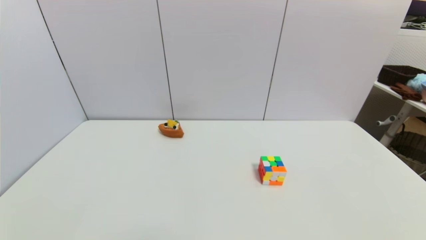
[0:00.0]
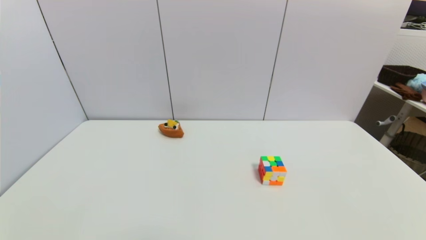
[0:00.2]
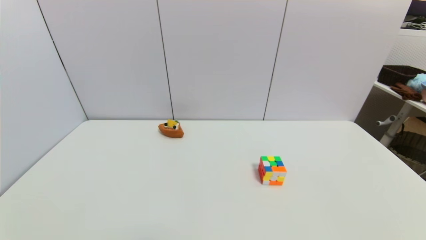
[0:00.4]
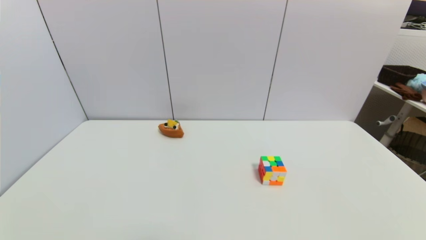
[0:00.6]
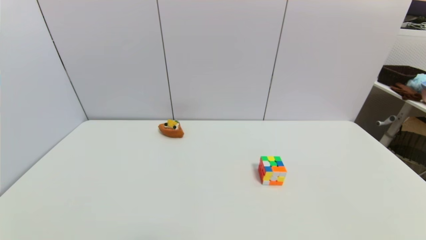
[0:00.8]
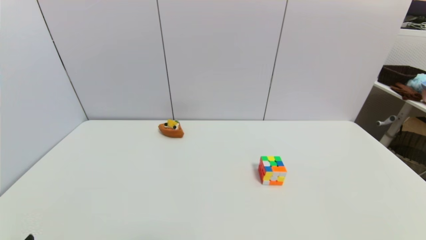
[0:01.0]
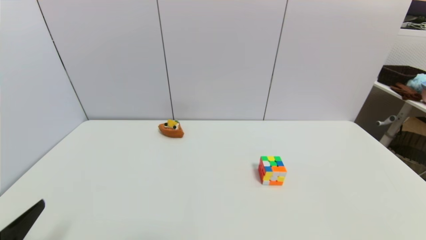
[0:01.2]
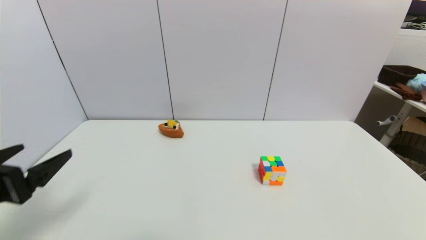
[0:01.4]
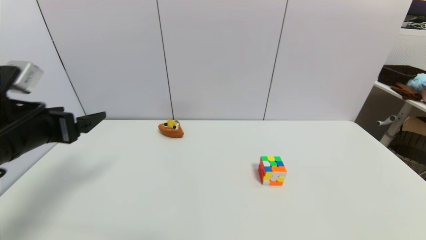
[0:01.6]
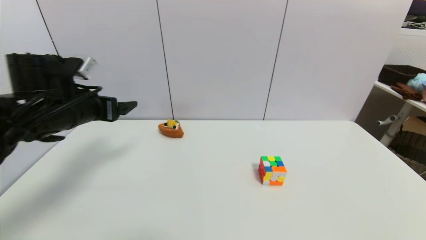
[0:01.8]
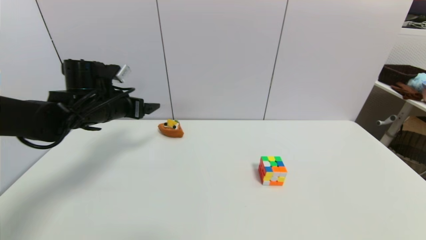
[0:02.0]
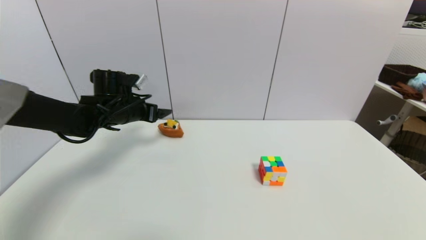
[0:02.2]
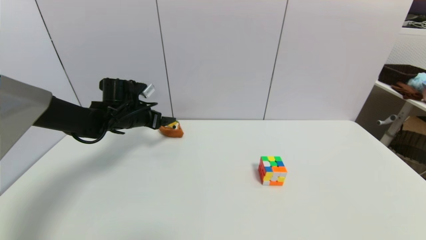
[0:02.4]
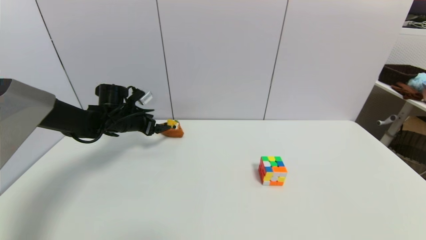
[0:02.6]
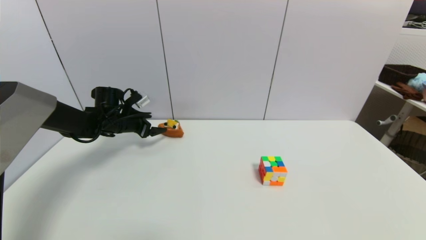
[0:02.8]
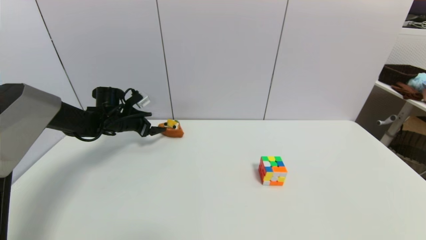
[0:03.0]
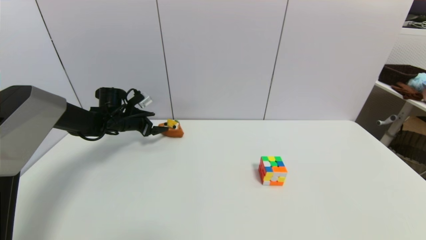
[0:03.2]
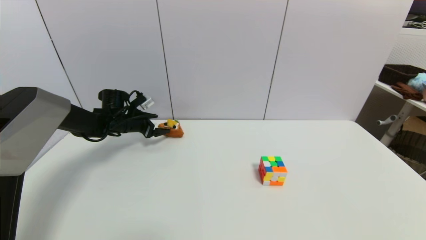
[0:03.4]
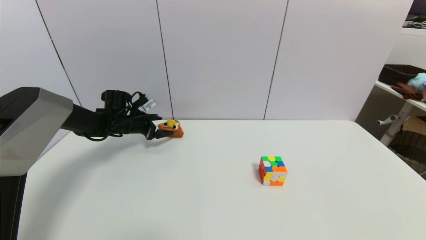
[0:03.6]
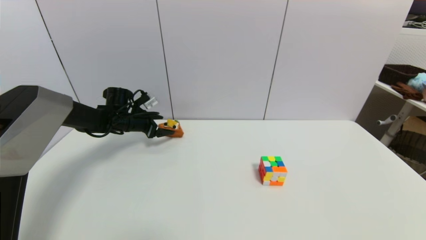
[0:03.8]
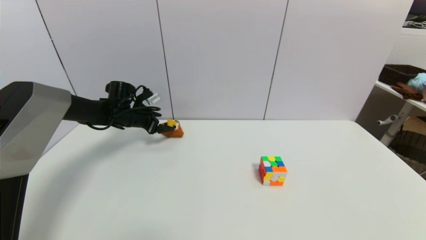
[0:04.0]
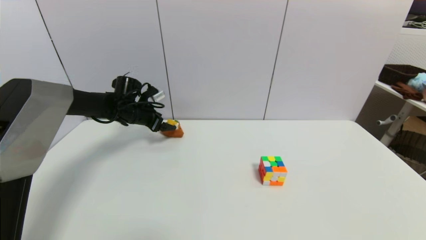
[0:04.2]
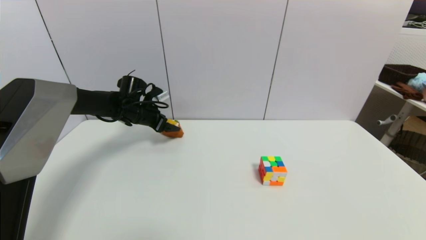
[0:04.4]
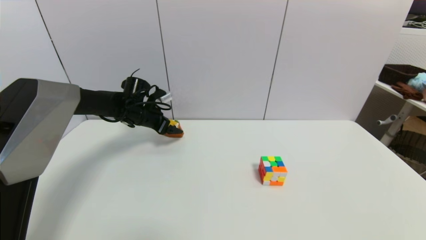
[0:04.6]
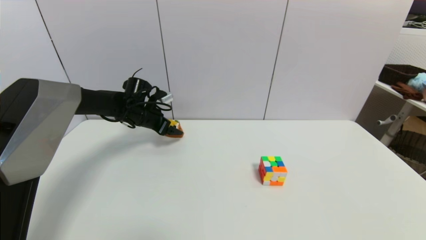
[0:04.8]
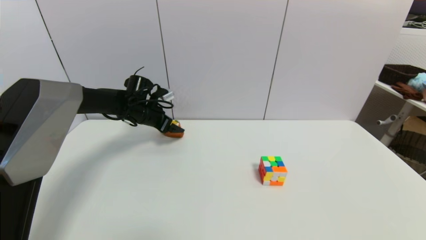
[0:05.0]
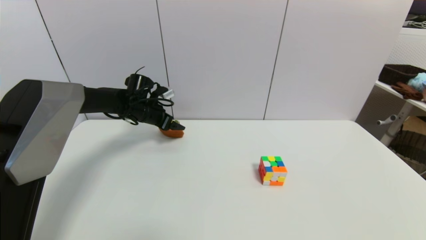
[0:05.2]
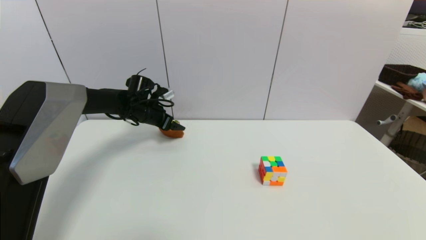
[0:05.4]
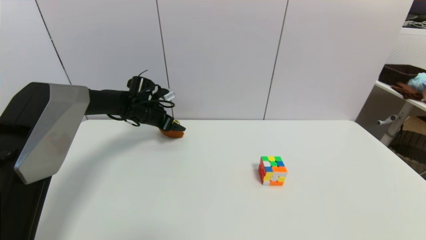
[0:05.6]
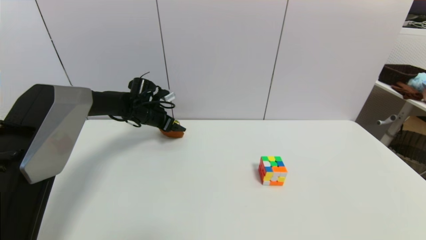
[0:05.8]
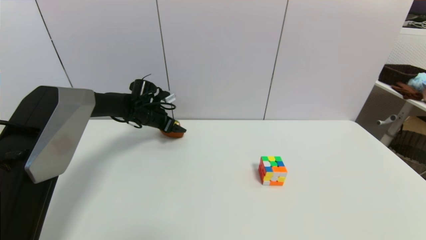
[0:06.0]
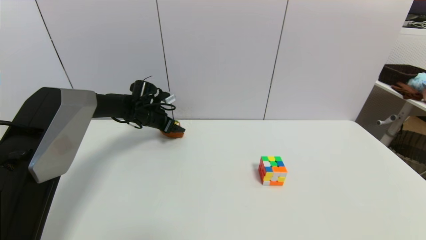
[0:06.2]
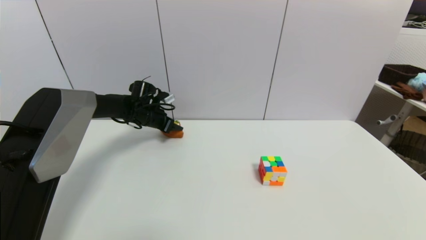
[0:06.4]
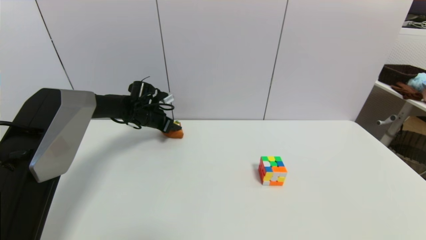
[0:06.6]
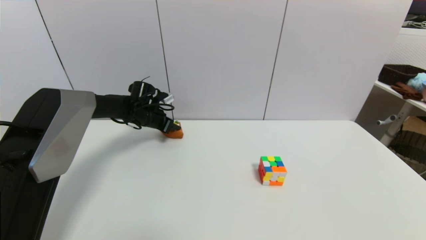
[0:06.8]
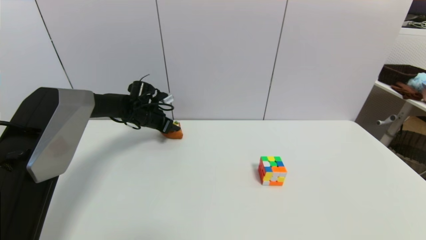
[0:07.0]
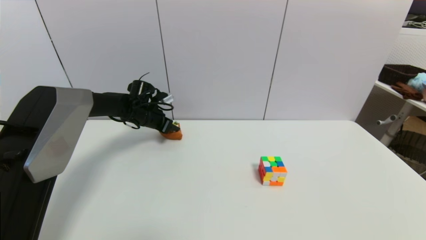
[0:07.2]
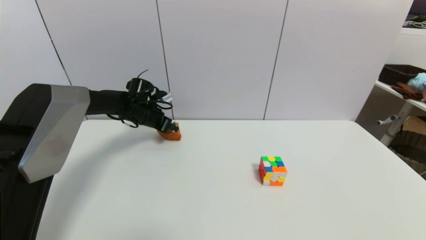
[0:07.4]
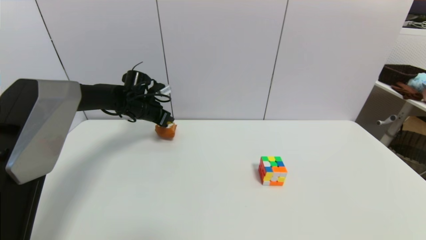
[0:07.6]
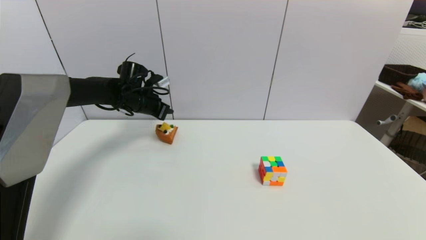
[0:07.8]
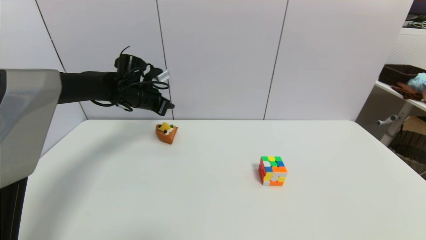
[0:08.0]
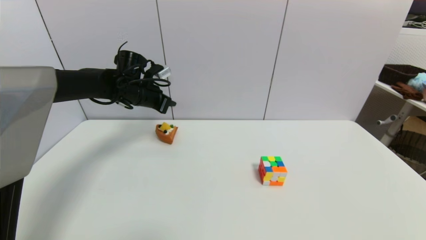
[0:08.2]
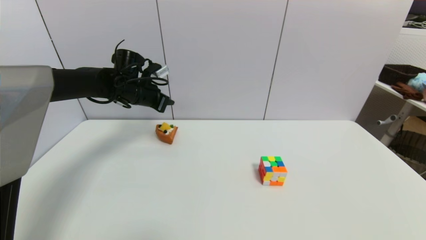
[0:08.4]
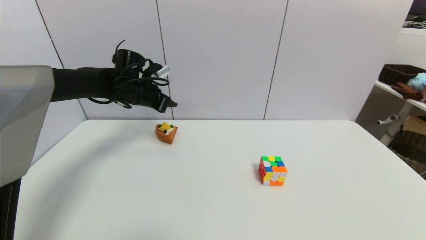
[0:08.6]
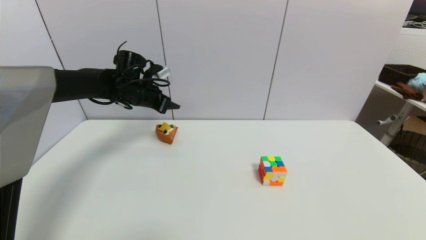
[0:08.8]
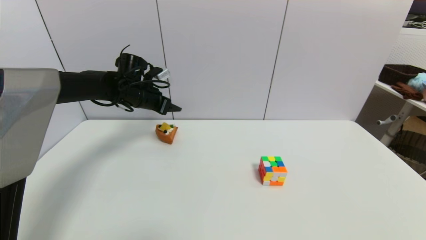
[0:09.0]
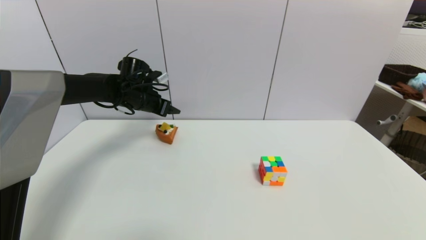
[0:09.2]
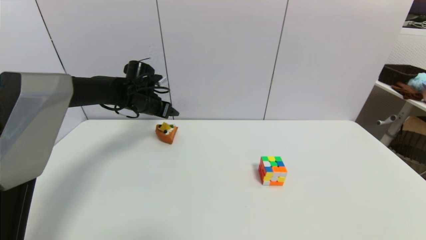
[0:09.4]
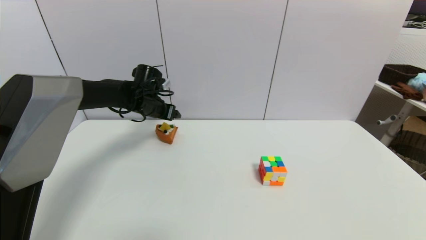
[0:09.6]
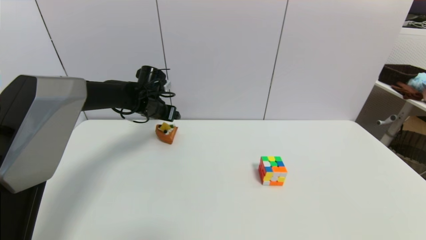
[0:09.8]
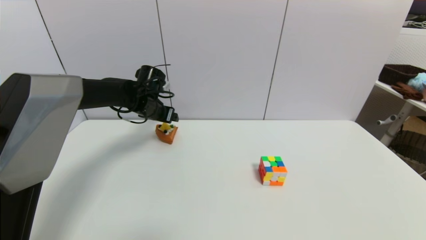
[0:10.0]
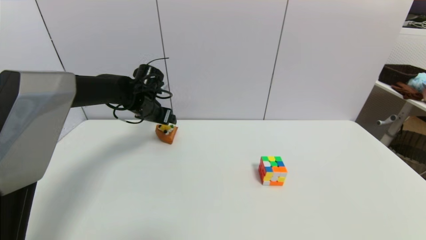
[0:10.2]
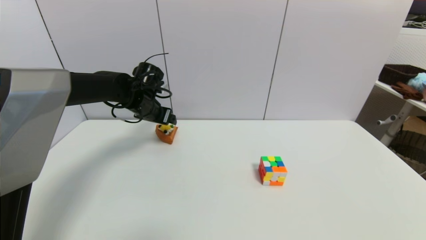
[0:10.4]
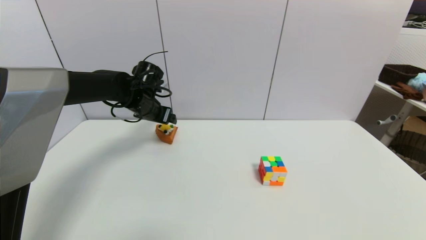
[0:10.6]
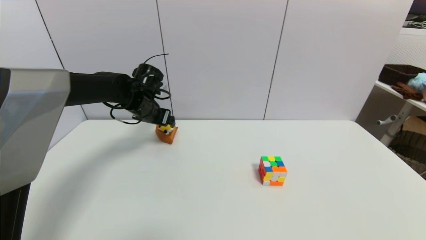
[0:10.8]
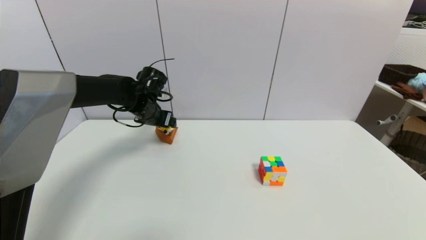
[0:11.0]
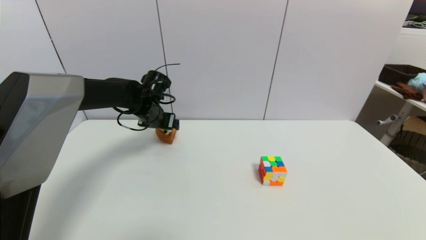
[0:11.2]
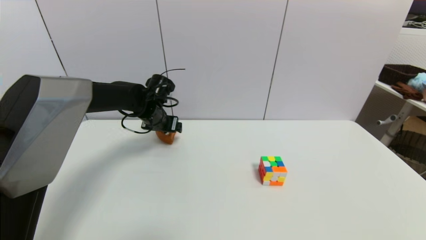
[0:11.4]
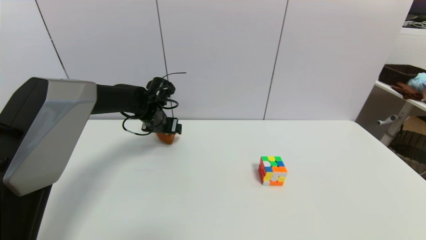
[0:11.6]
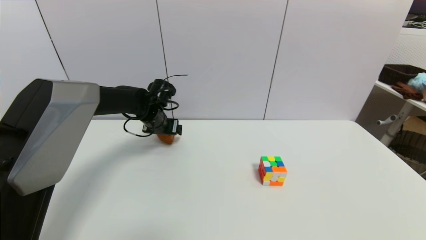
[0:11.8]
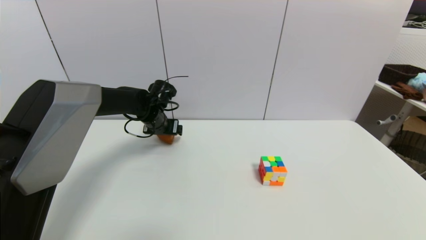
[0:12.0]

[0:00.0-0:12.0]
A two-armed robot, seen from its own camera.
Step, 0:01.0 to 0:07.0: Grasp the pizza with left gripper.
0:00.0 to 0:01.6: The left gripper moves forward and upward, about 30 cm.
0:01.6 to 0:03.0: The left gripper travels forward and downward by about 25 cm.
0:03.0 to 0:04.4: The left gripper heads to the right, covering about 5 cm.
0:04.4 to 0:06.0: The grippers stay close to where they were, moving slightly.
0:06.0 to 0:07.6: The left gripper closes up.
0:07.6 to 0:09.0: The left gripper opens its fingers.
0:10.4 to 0:12.0: The left gripper changes place by about 5 cm.

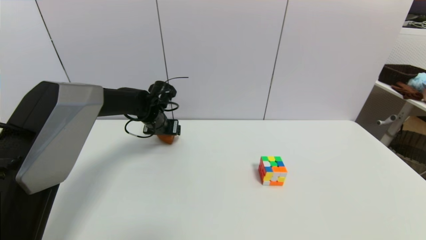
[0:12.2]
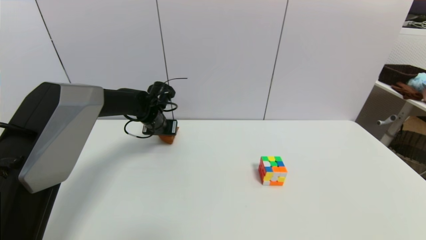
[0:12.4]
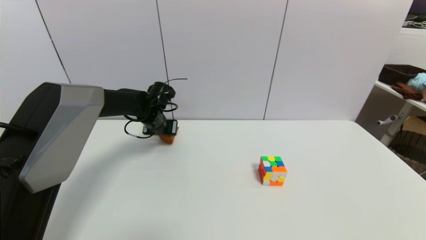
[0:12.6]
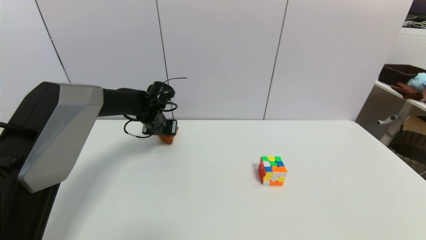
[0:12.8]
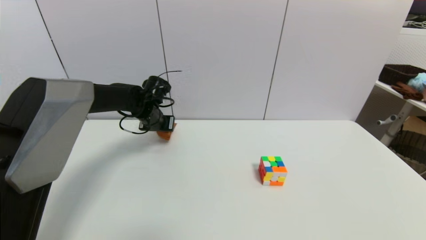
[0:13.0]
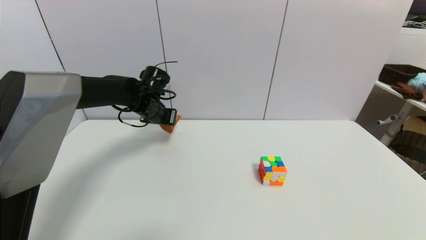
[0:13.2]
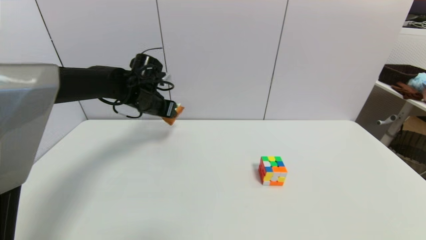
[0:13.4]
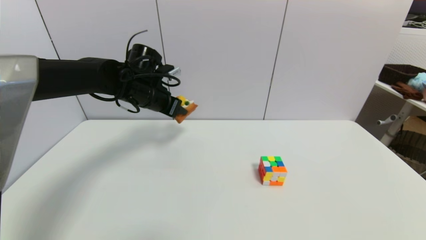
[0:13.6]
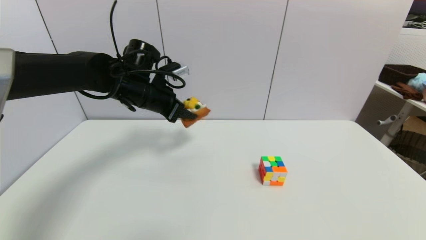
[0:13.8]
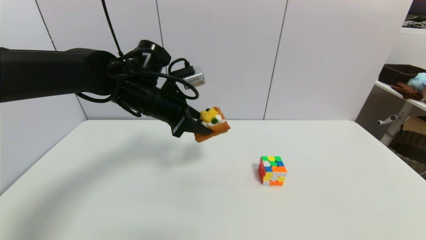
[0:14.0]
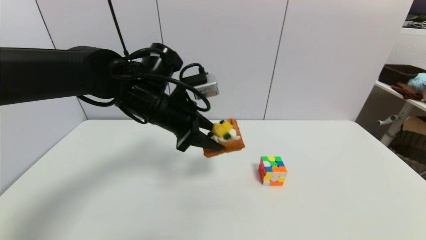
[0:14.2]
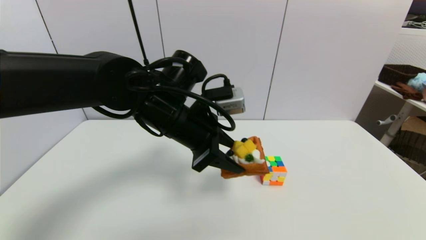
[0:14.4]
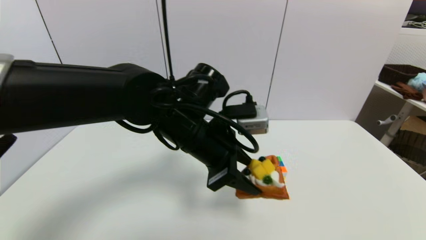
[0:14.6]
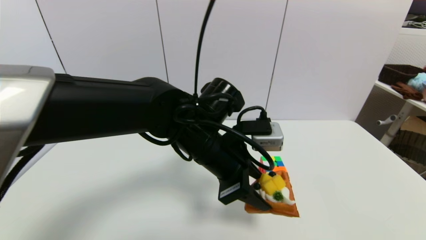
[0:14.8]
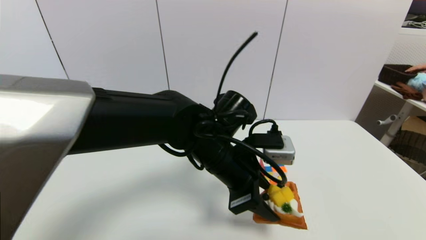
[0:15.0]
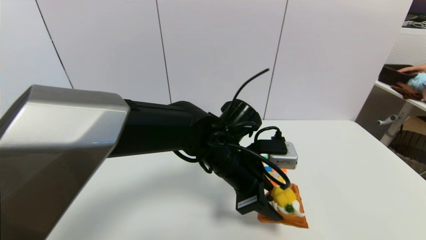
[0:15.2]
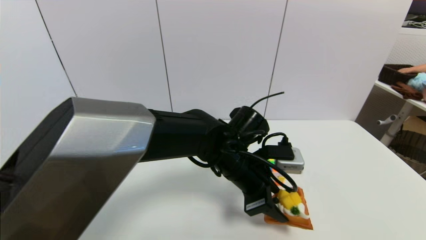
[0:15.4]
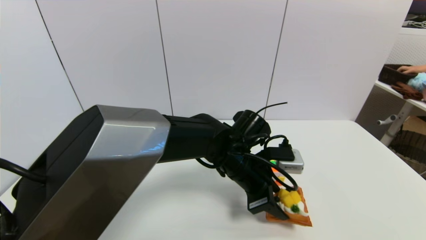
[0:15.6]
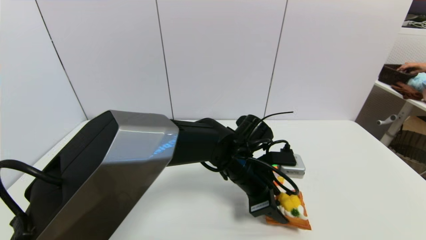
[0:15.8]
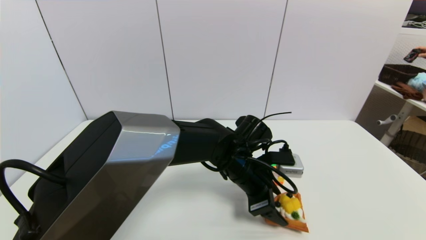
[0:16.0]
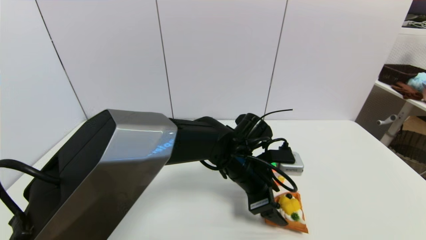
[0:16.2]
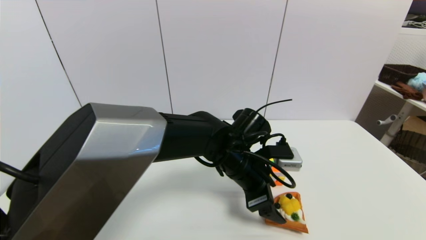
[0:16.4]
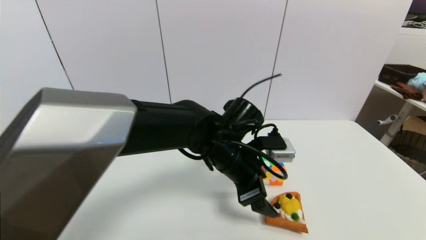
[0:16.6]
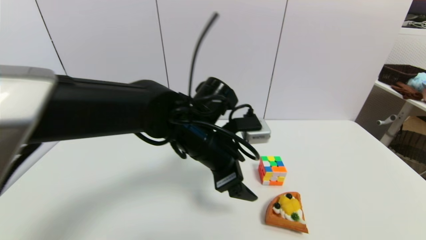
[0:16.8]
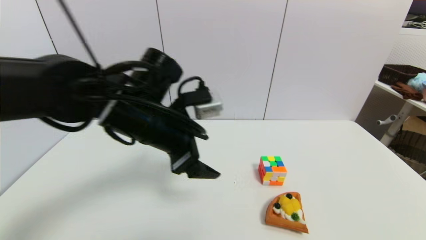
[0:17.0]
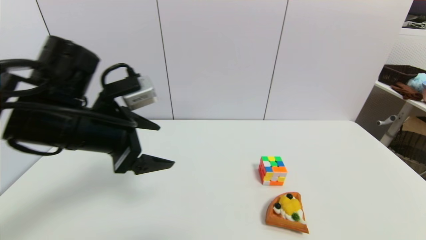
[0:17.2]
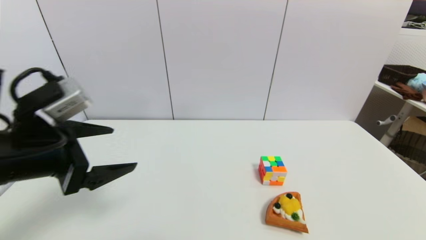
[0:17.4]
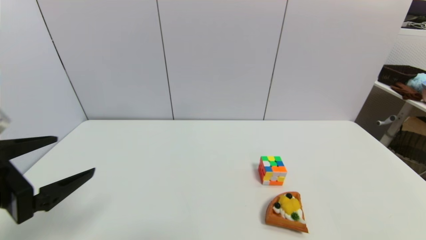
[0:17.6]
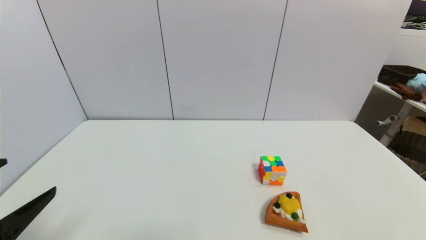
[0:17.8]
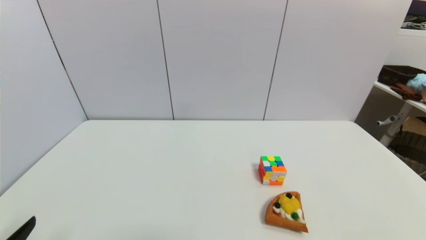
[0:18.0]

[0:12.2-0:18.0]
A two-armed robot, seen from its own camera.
Step, 0:12.2 to 0:16.2: Place the pizza on the table with left gripper.
0:12.2 to 0:13.6: The left gripper shifts approximately 10 cm upward.
0:13.6 to 0:15.0: The left gripper travels to the right and backward by some 20 cm.
0:15.0 to 0:16.6: The left gripper opens up.
0:16.6 to 0:18.0: The left gripper heads to the left and backward, covering about 40 cm.
